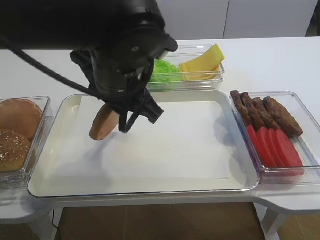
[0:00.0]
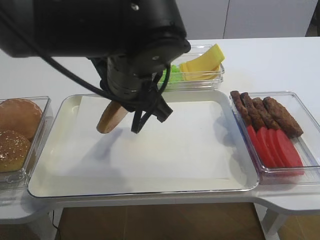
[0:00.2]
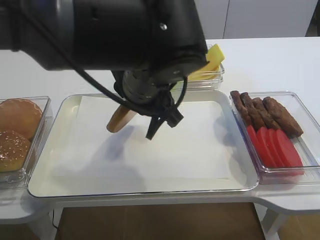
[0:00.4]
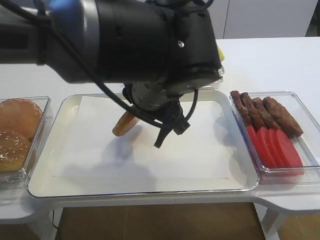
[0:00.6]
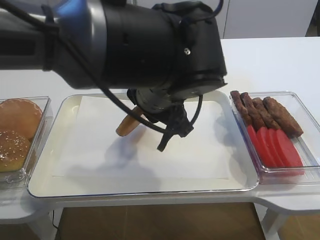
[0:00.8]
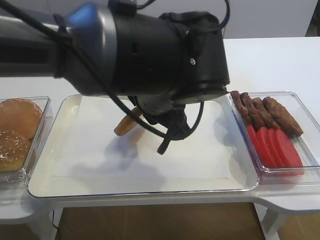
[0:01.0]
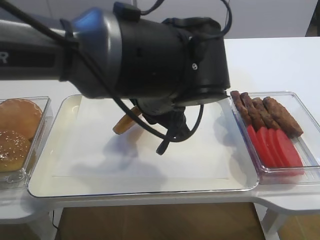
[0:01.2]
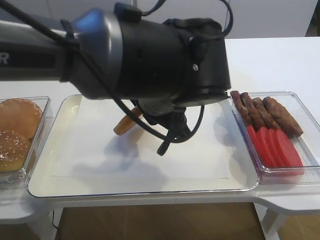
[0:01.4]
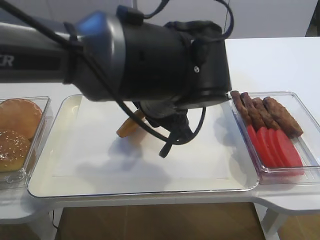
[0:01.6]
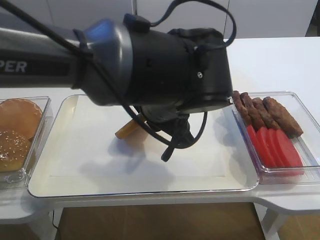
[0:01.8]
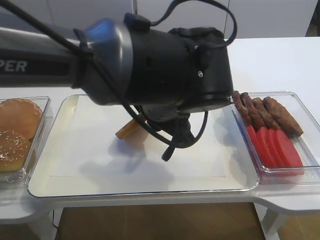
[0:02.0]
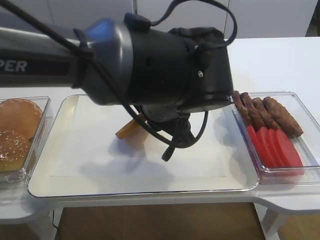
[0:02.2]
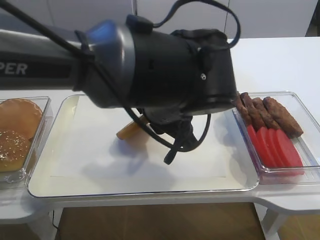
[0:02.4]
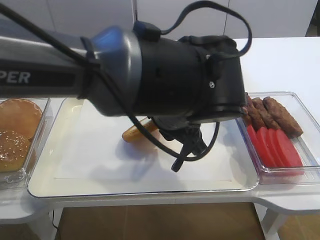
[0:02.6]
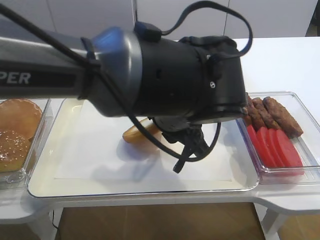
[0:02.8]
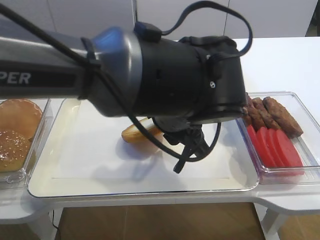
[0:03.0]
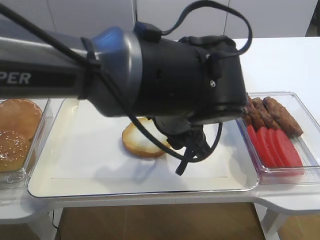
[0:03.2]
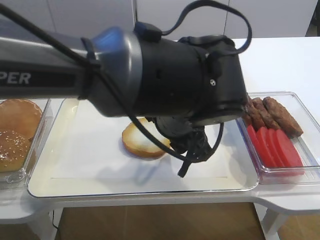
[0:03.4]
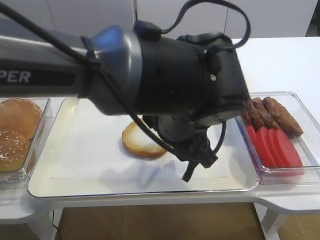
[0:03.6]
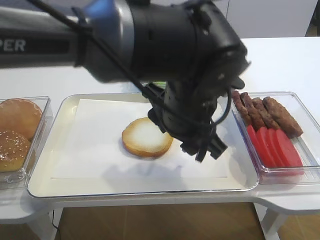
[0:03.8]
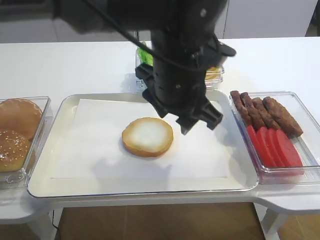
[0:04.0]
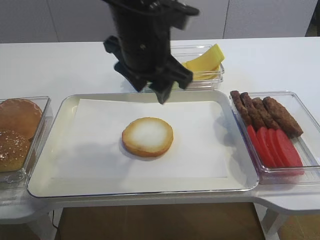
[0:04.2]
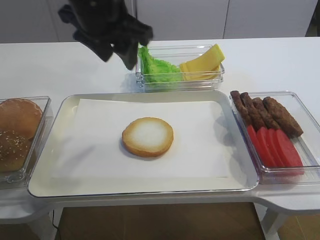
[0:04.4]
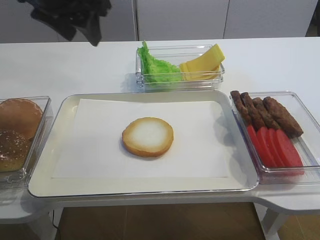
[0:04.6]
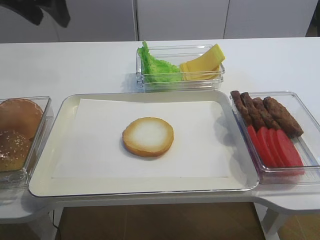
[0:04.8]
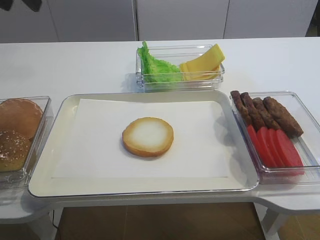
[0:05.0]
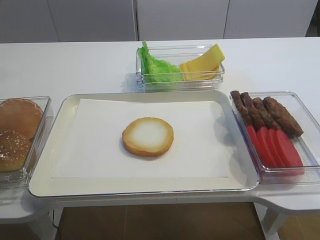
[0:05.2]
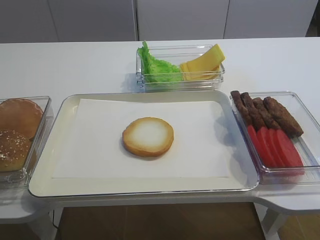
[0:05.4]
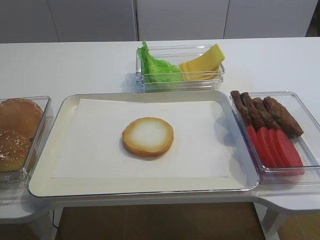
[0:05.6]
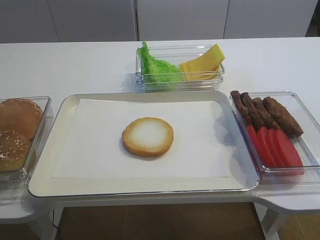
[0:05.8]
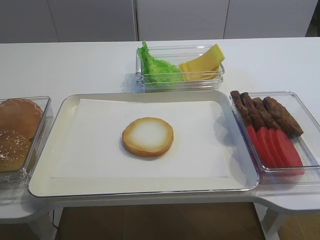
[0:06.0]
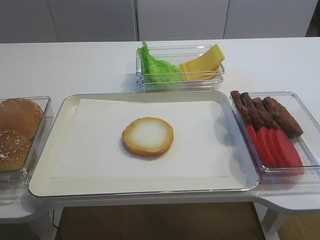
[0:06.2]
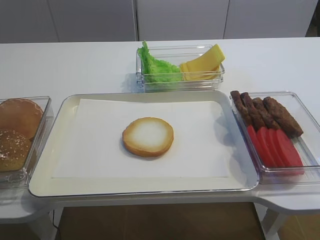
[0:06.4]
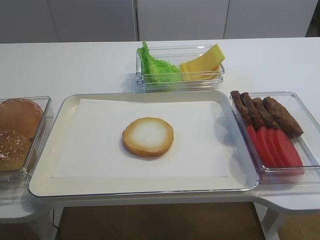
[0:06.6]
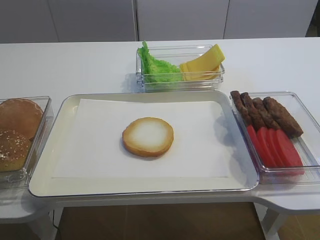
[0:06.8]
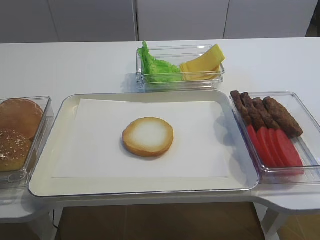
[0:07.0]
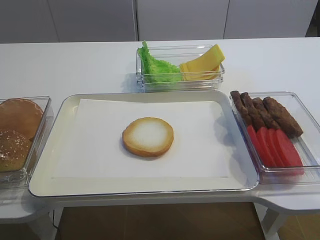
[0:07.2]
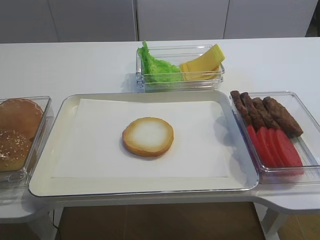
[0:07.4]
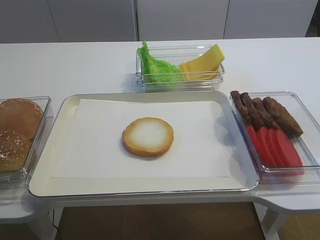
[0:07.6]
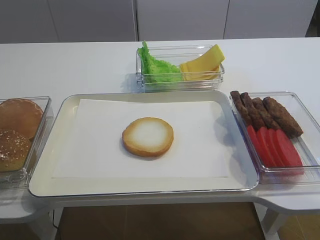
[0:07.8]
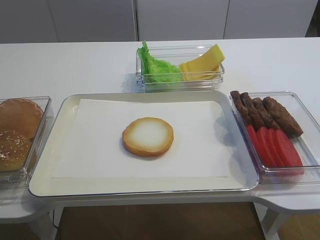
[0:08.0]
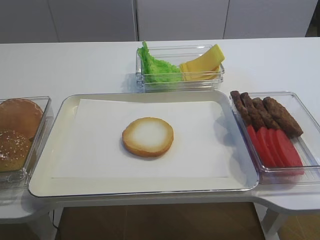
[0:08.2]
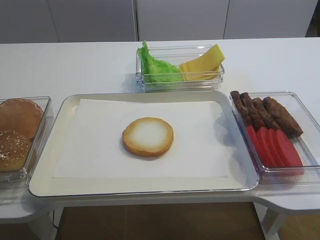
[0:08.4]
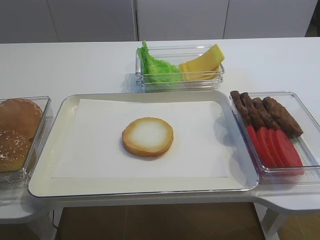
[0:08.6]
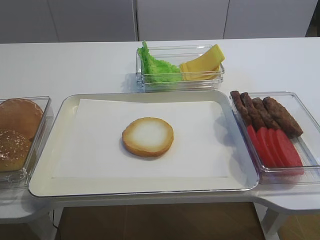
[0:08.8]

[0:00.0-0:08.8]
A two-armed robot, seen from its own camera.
Step, 0:00.0 to 0:03.6: Place the bread slice on the tray with the left gripper.
0:00.0 to 0:01.4: The left gripper is displaced to the right by approximately 5 cm.
0:01.4 to 0:03.0: The left gripper opens its fingers.
0:03.0 to 0:04.4: The left gripper travels to the left, upward and forward by roughly 20 cm, and opens its fingers.
0:04.4 to 0:05.8: The left gripper travels to the left and backward by some 25 cm.

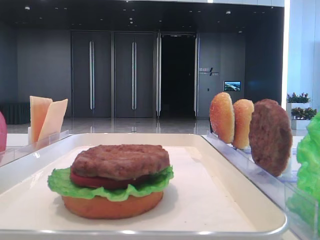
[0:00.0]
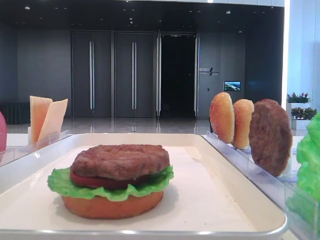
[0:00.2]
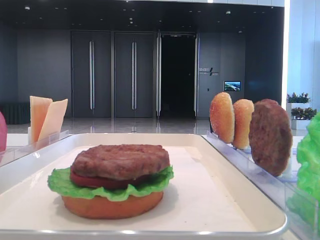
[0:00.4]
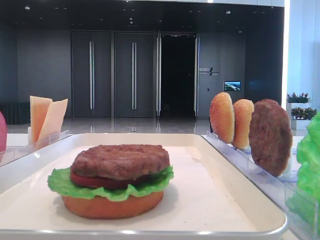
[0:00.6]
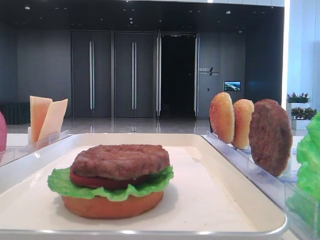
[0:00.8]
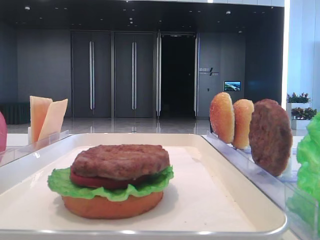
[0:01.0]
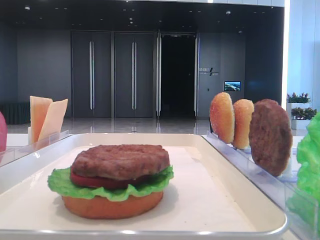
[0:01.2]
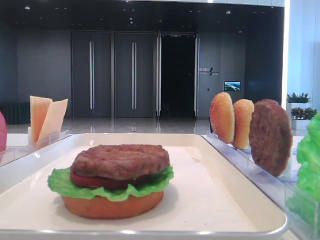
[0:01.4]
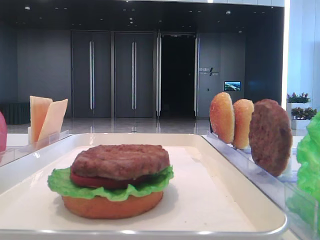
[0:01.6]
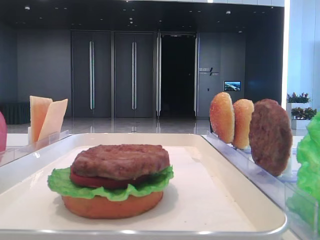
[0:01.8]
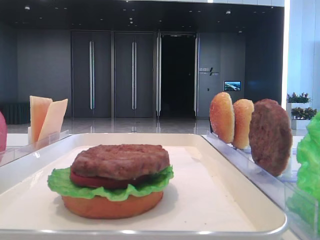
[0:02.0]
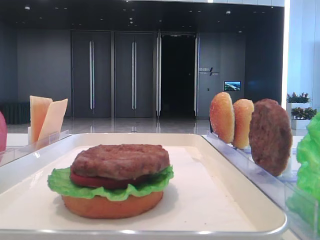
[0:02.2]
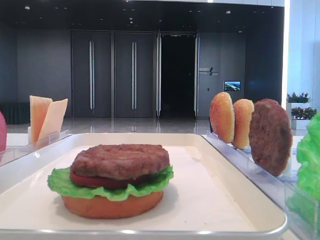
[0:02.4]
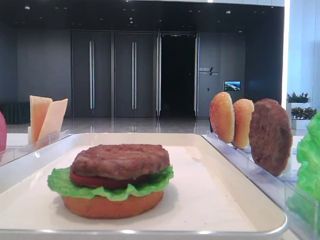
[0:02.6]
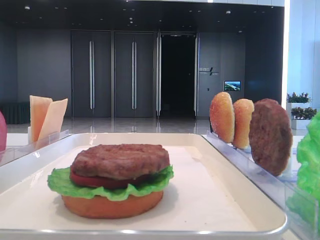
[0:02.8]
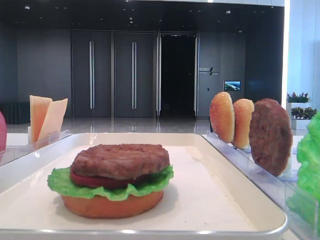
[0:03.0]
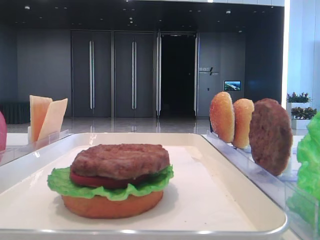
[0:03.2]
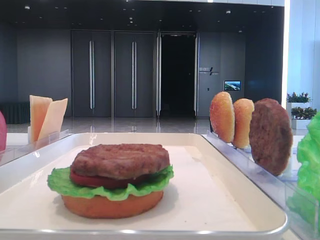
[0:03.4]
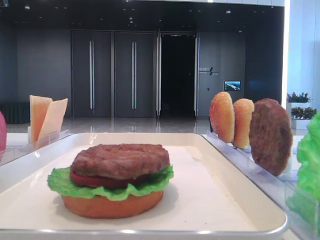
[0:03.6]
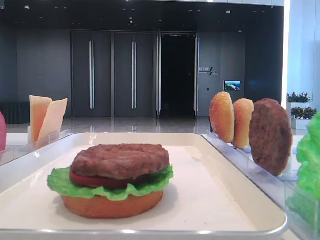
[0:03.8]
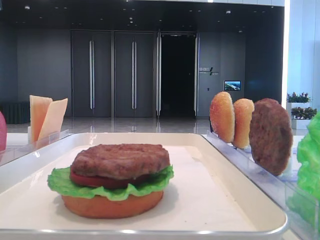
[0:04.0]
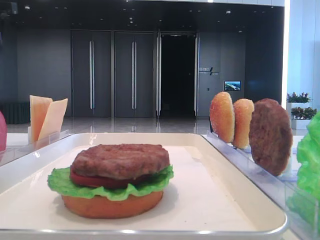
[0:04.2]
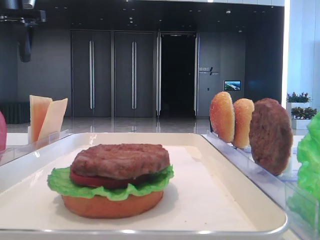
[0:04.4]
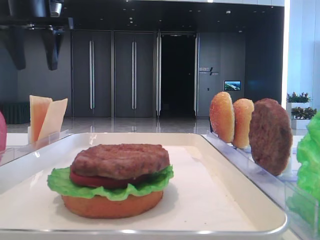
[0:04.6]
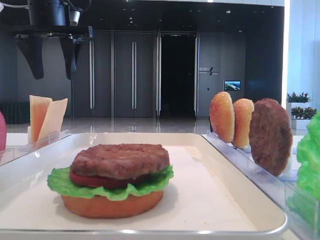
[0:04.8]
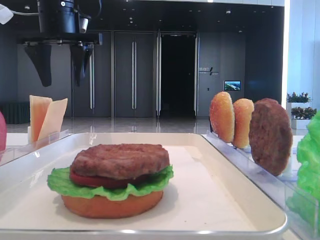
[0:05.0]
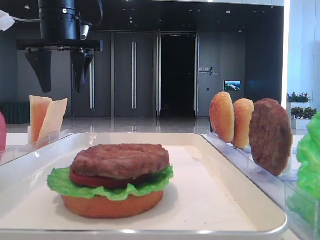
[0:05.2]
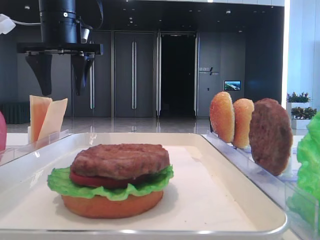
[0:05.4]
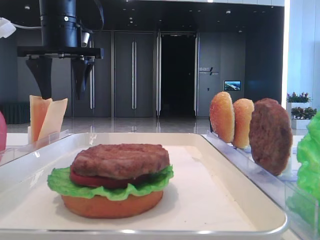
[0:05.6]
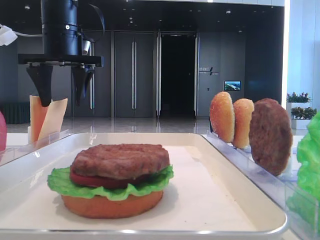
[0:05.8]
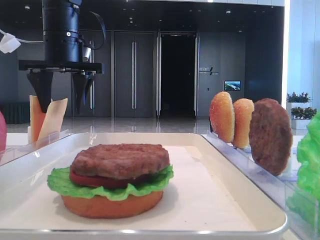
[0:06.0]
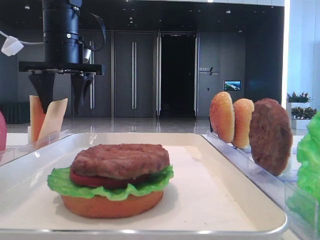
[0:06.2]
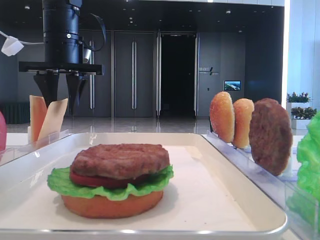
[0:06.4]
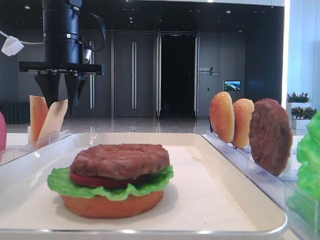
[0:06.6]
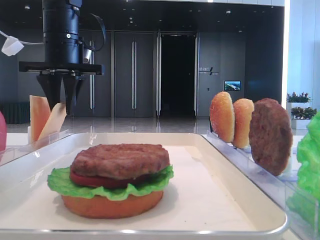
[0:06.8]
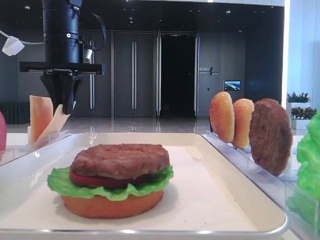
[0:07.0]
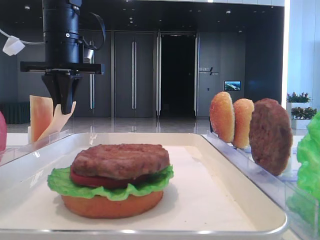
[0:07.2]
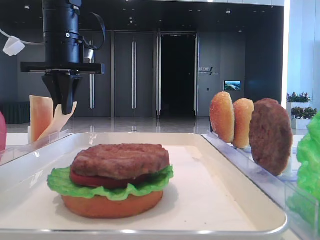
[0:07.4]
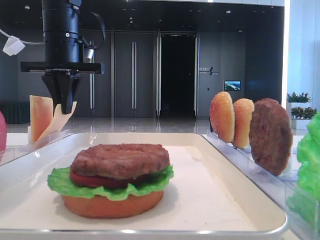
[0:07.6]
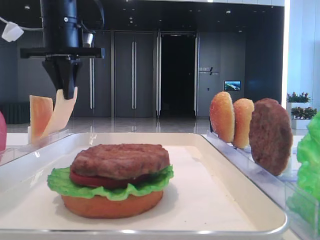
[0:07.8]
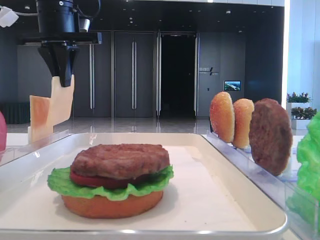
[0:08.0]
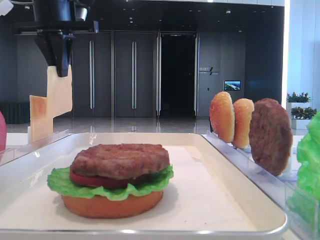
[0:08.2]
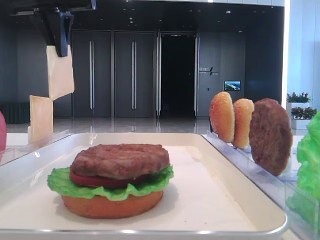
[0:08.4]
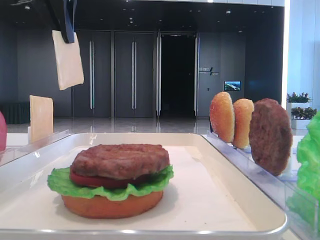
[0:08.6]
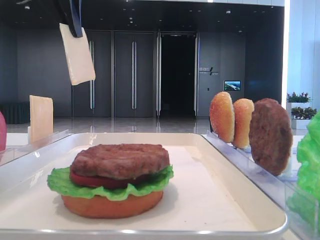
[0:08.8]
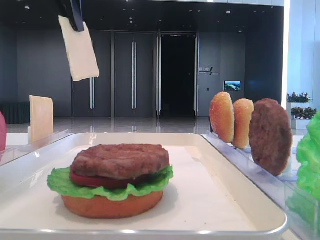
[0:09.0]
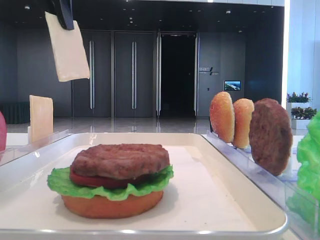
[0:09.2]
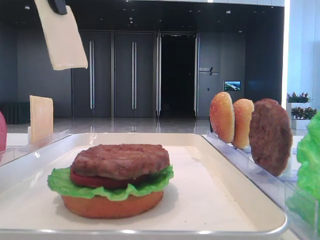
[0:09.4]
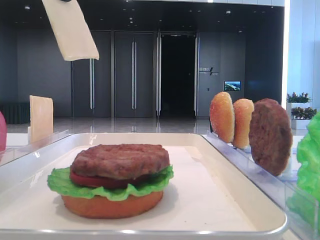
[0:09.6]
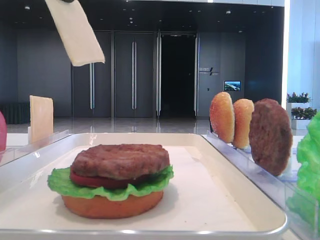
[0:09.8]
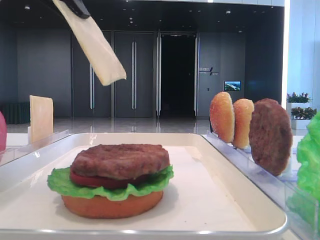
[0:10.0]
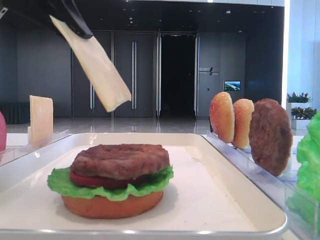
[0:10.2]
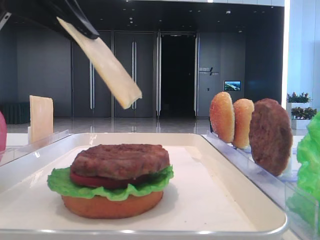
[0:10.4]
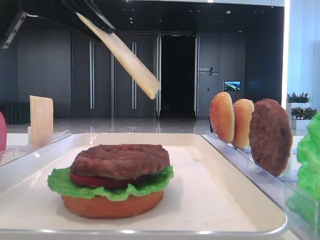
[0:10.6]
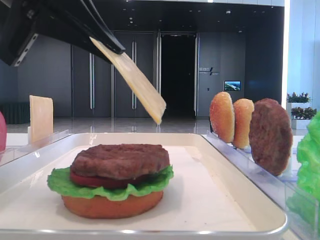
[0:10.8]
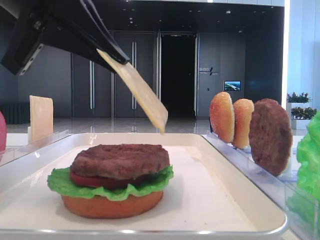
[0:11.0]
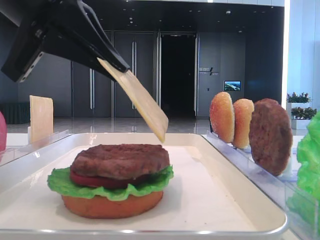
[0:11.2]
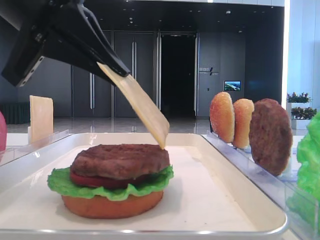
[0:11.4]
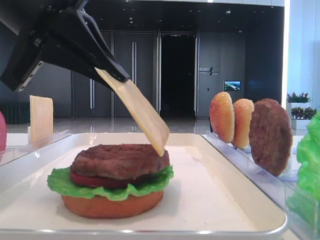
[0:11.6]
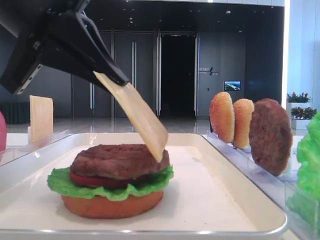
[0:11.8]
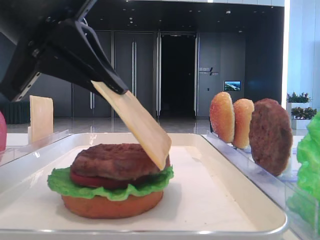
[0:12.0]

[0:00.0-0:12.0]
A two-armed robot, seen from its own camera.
Step, 0:00.0 to 0:07.0: Pick up the cheese slice with the left hand.
0:03.0 to 0:04.4: The left gripper travels forward, downward and to the right by approximately 10 cm.
0:04.4 to 0:06.0: The left gripper heads to the right and downward, covering approximately 15 cm.
0:06.0 to 0:07.6: The left gripper closes.
0:07.6 to 0:09.0: The left gripper goes approximately 15 cm upward and backward.
0:09.0 to 0:10.4: The left gripper travels backward and downward by some 15 cm.
0:10.4 to 0:12.0: The left gripper goes roughly 5 cm downward.

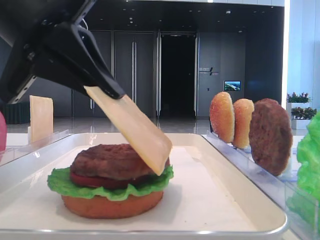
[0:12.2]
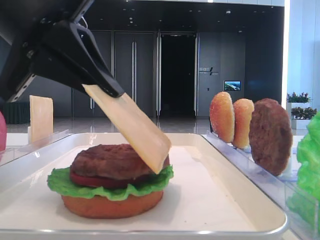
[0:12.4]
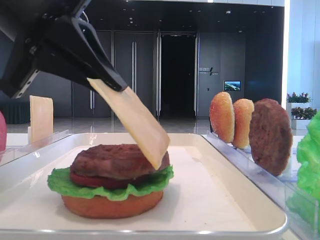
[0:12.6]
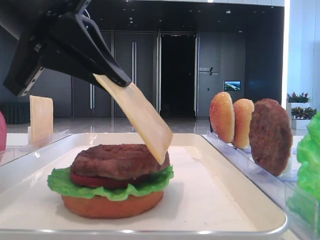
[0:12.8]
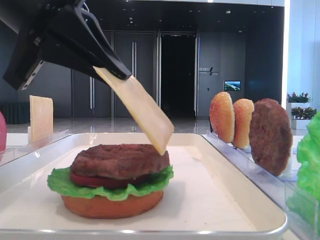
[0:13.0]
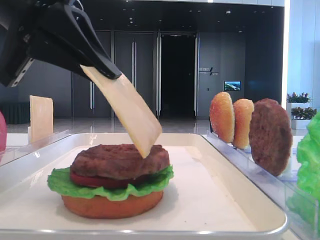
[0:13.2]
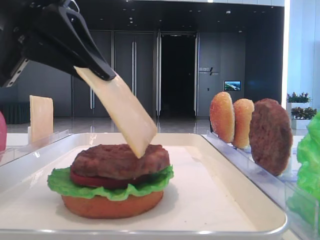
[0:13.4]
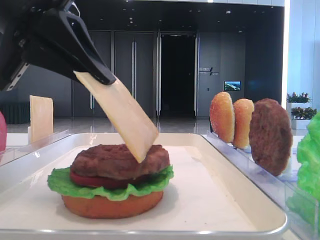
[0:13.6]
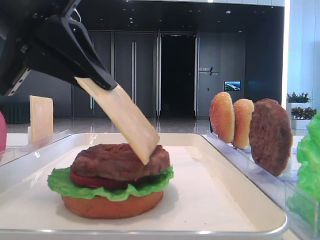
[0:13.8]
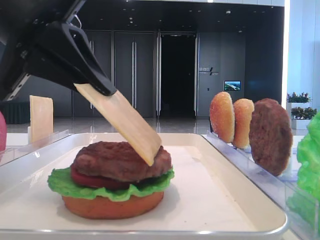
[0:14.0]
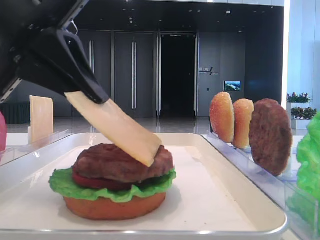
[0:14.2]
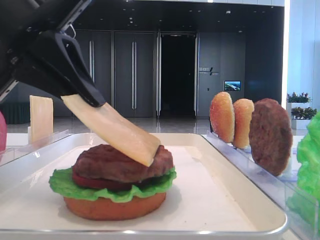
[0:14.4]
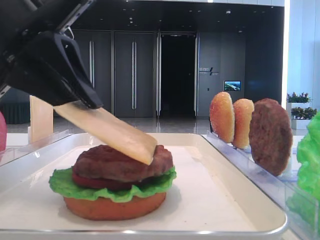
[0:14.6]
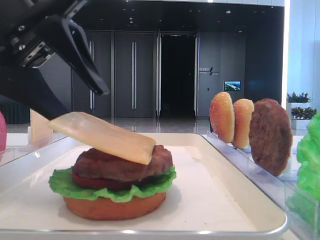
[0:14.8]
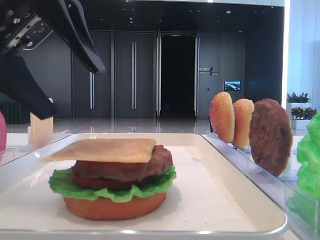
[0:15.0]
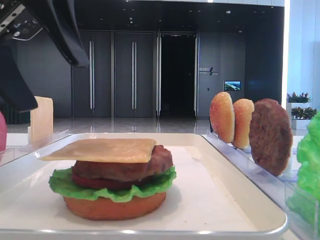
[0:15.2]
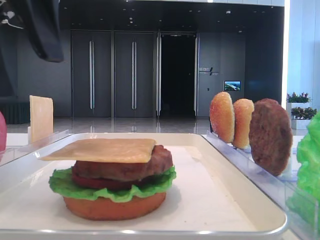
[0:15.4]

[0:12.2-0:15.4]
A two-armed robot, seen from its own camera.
Step, 0:12.2 to 0:14.8: Place the cheese slice on the patty with the left hand.
0:12.2 to 0:13.8: The grippers move only a little.
0:13.8 to 0:15.4: The left gripper opens up.
